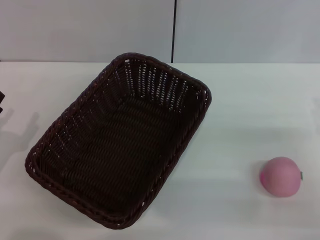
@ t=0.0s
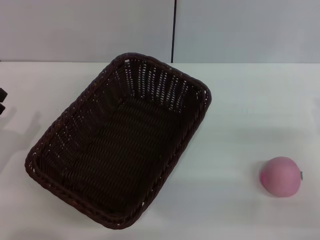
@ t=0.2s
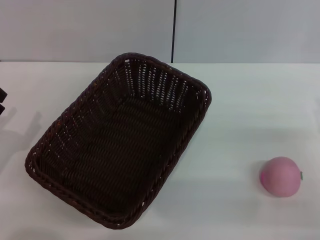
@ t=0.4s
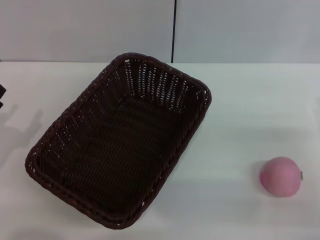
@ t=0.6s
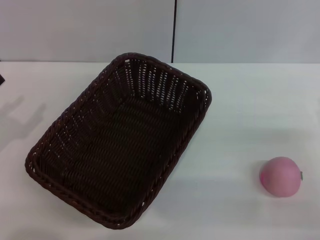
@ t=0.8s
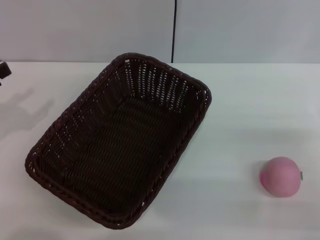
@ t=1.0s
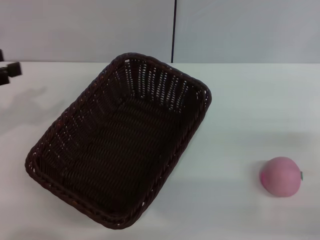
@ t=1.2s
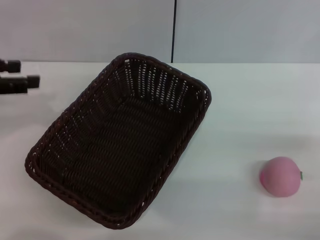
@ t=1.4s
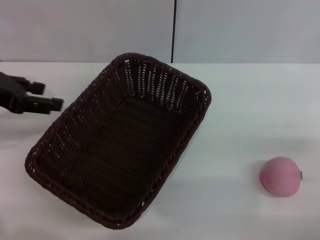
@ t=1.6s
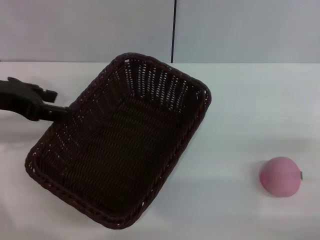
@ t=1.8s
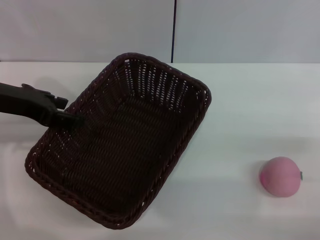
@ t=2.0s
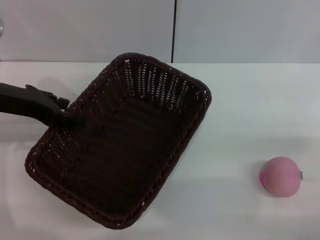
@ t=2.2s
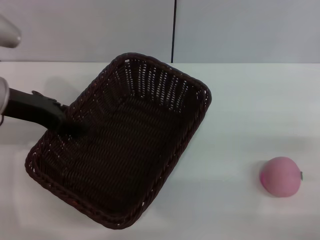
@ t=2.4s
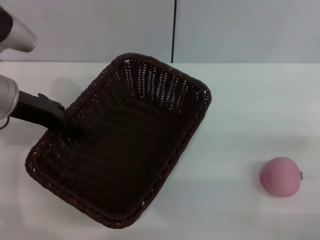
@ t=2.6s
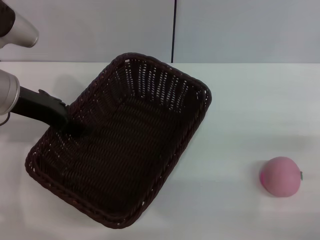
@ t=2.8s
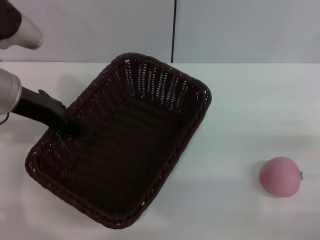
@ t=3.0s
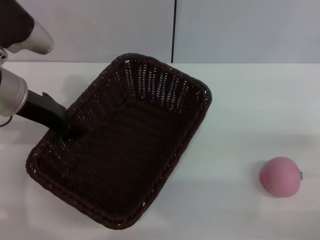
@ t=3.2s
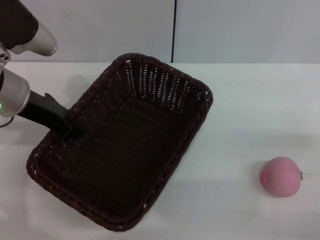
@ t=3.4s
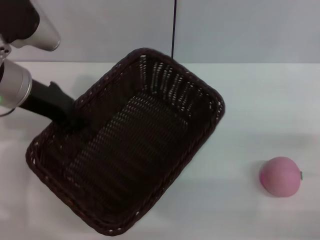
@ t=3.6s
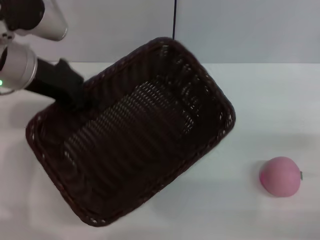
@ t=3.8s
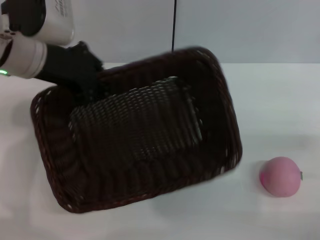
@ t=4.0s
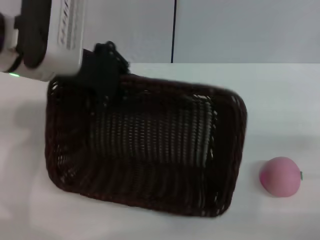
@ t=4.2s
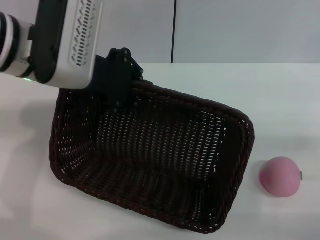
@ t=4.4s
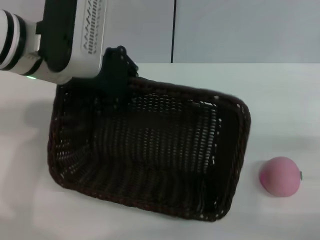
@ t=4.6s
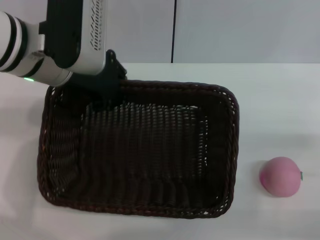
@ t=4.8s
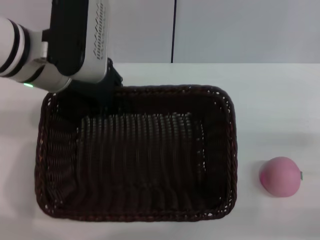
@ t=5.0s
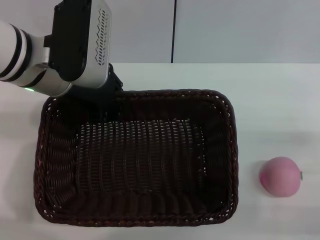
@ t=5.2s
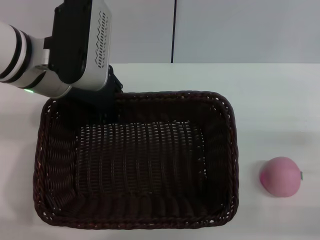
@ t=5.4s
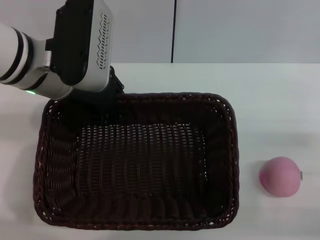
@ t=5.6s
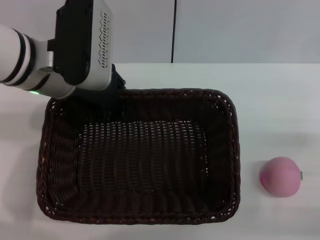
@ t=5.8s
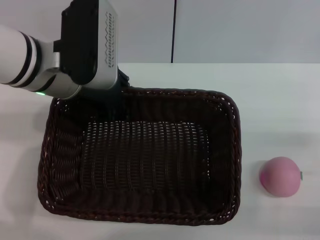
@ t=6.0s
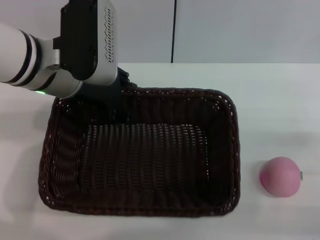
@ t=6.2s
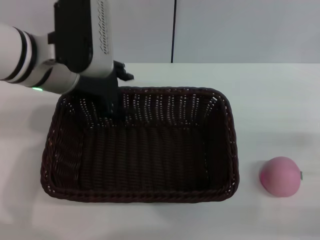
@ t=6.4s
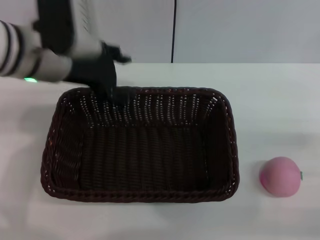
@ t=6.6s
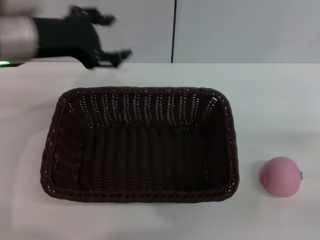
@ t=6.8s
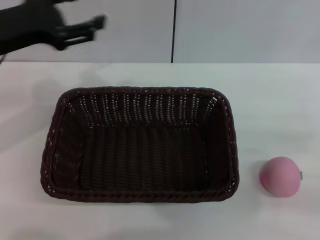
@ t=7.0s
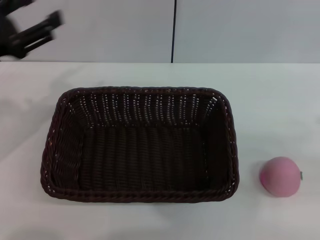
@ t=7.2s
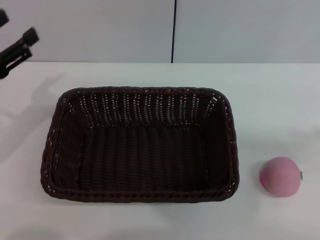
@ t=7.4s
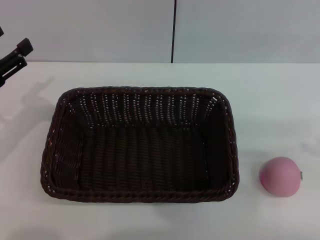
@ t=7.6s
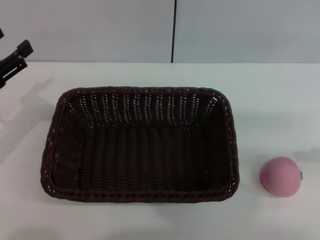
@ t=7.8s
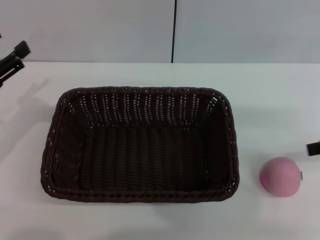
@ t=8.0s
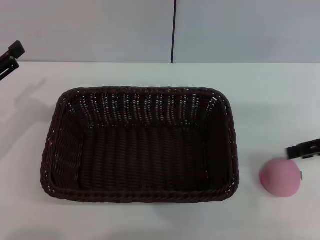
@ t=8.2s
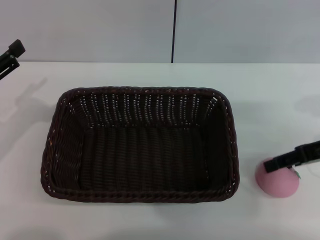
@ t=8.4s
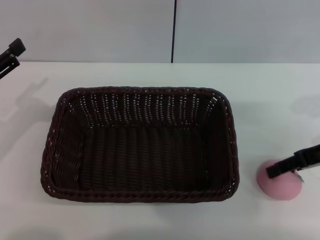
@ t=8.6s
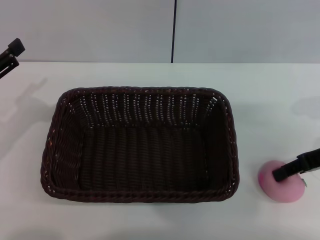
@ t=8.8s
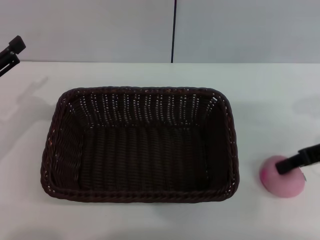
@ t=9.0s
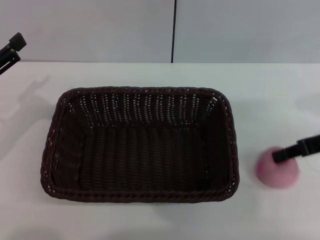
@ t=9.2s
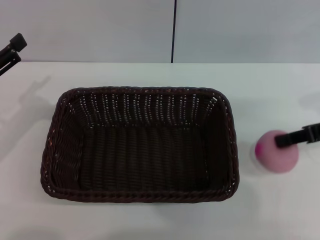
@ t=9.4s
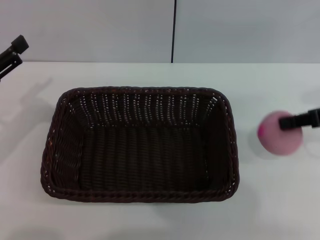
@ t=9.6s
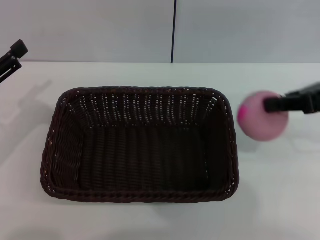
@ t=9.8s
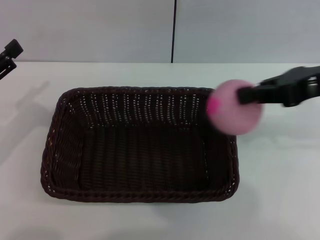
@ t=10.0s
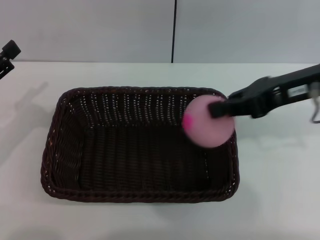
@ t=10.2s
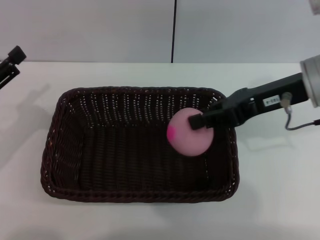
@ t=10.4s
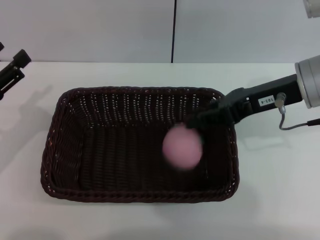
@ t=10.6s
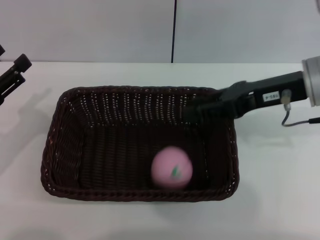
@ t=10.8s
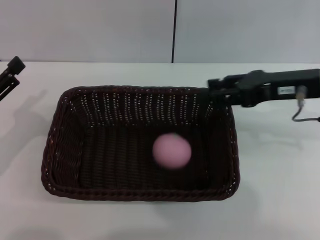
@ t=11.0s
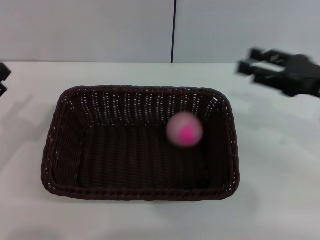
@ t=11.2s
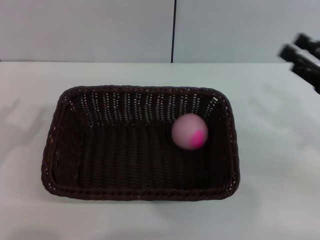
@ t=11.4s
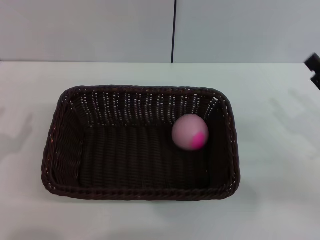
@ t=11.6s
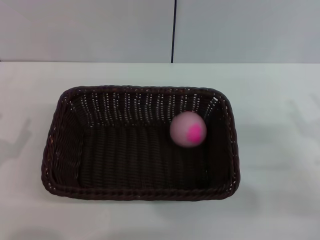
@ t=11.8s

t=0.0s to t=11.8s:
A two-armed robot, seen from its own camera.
Step, t=0.0s to t=3.8s: Pick up the dark basket with the left gripper.
Step, t=4.0s to t=6.6s: Place the dark basket in the center of view with the right gripper.
Step, t=6.8s to t=9.6s: Pick up the peach with the left gripper.
Step, t=9.8s to t=11.0s: Place the peach into the basket with the left gripper.
t=0.0s to t=1.4s: The left gripper shifts some 20 cm upward and forward.
t=1.4s to t=3.0s: The left gripper is displaced to the right by some 10 cm.
t=3.0s to t=4.4s: The left gripper moves to the right, approximately 10 cm, and closes up.
t=6.0s to t=7.4s: The right gripper shifts some 15 cm upward and to the right. The left gripper shifts approximately 20 cm to the left and backward, and opens up.
t=7.4s to t=8.8s: The right gripper goes about 15 cm to the left, forward and downward.
t=8.8s to t=10.4s: The right gripper is displaced to the left and upward by roughly 10 cm, and closes up.
t=10.4s to t=11.8s: The left gripper is displaced backward and downward by about 10 cm; the right gripper moves downward, backward and to the right, about 20 cm, and opens.
